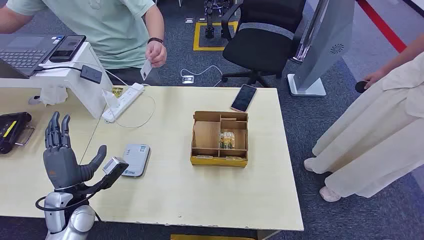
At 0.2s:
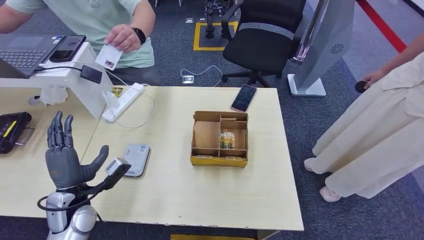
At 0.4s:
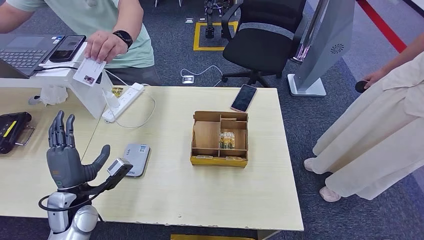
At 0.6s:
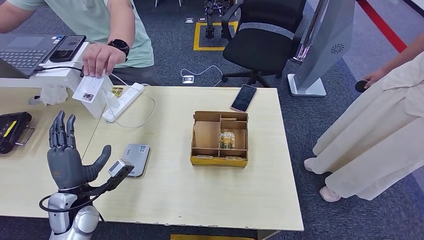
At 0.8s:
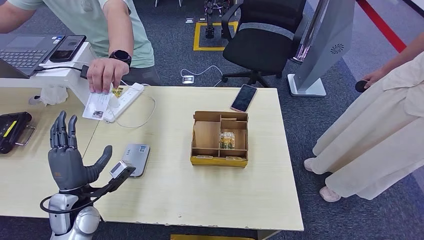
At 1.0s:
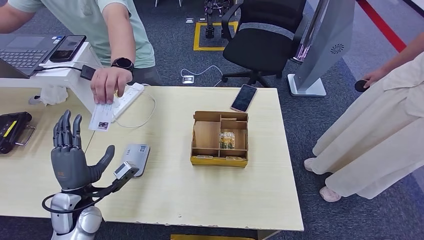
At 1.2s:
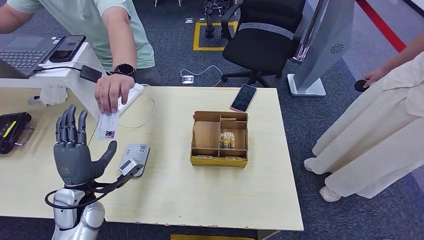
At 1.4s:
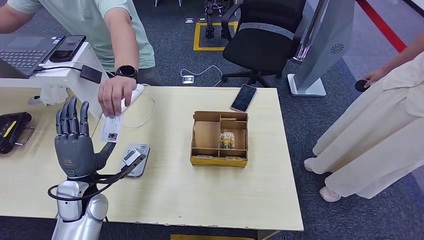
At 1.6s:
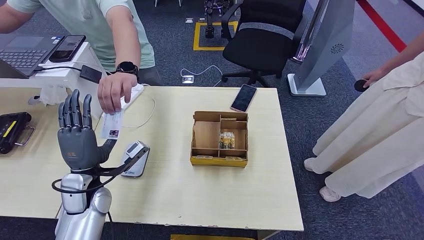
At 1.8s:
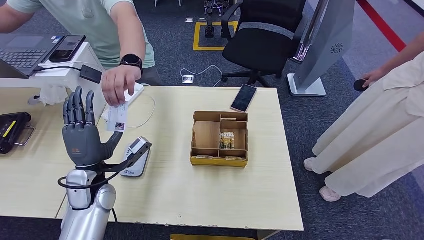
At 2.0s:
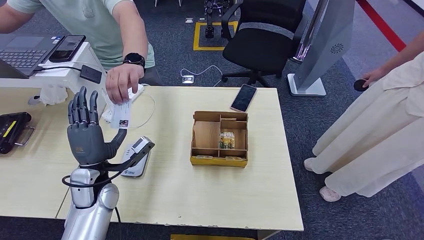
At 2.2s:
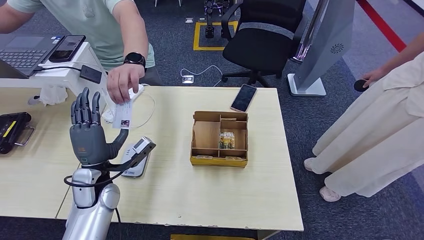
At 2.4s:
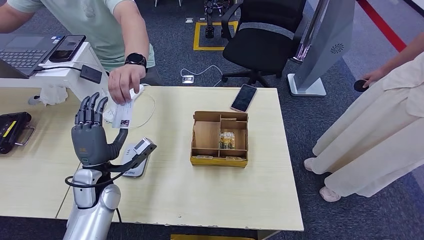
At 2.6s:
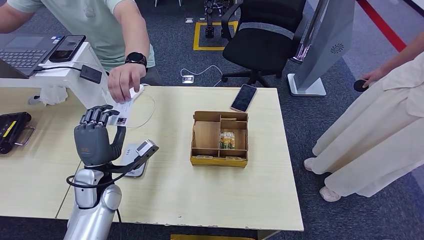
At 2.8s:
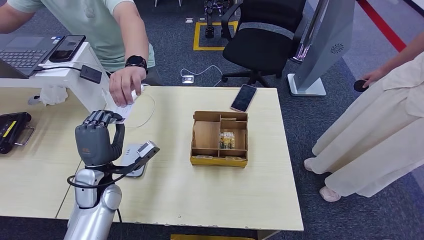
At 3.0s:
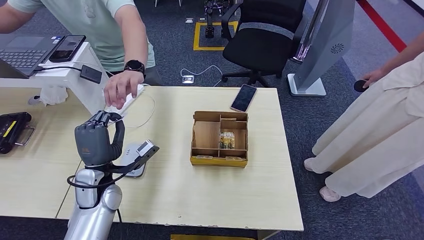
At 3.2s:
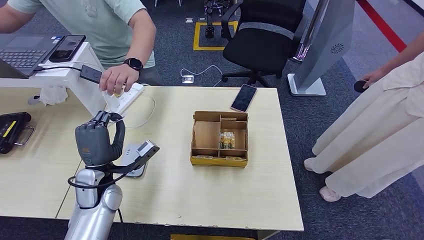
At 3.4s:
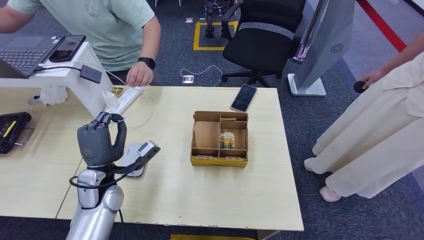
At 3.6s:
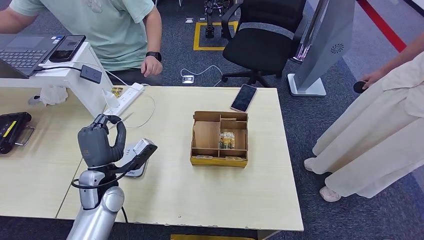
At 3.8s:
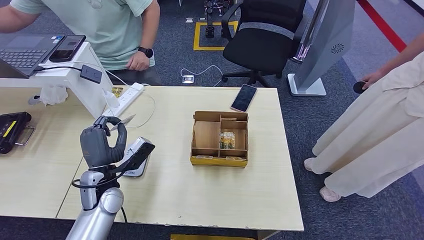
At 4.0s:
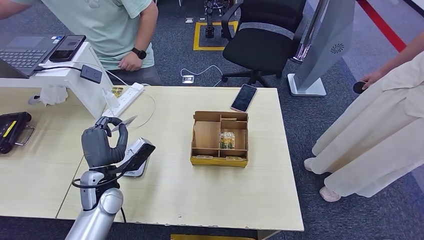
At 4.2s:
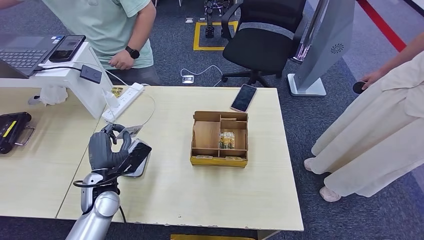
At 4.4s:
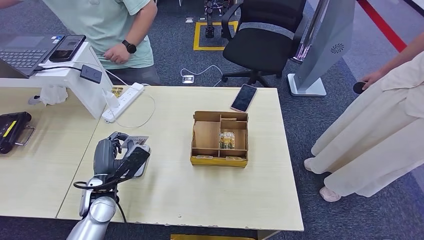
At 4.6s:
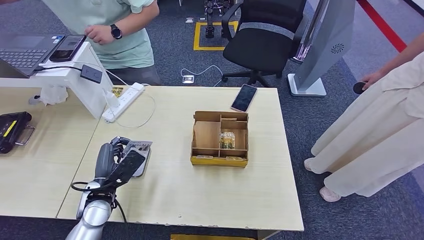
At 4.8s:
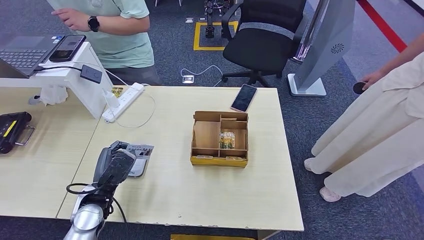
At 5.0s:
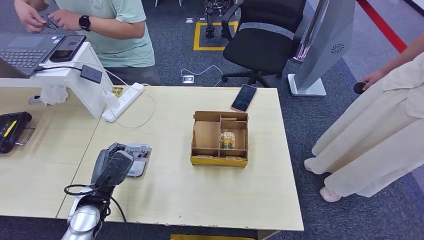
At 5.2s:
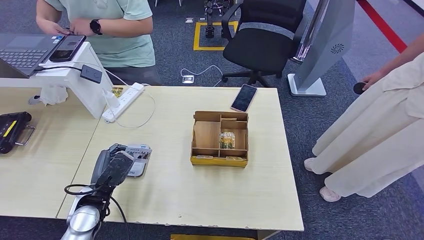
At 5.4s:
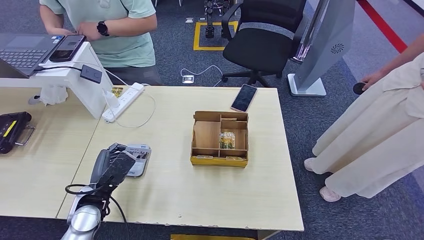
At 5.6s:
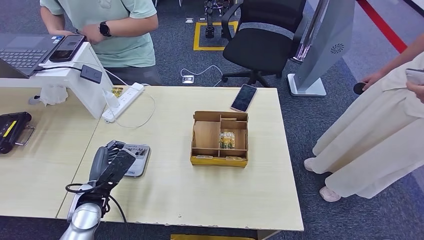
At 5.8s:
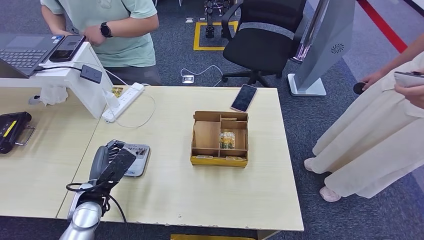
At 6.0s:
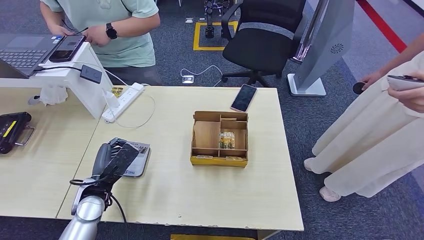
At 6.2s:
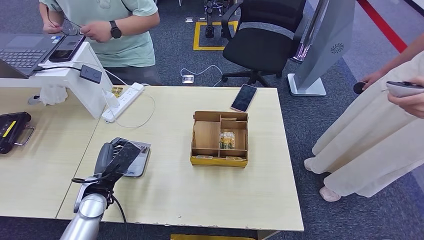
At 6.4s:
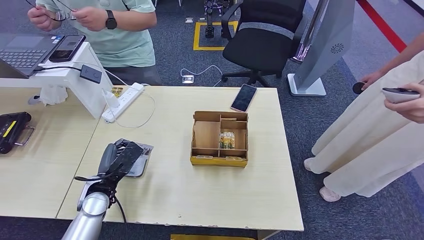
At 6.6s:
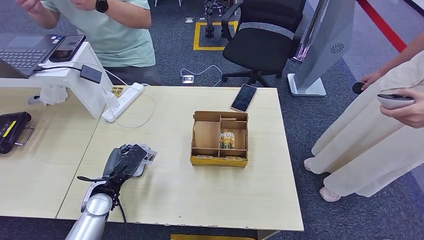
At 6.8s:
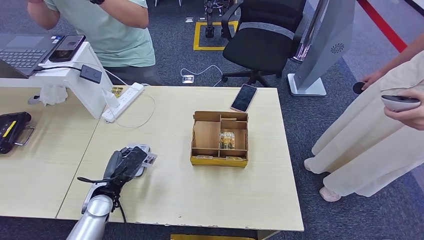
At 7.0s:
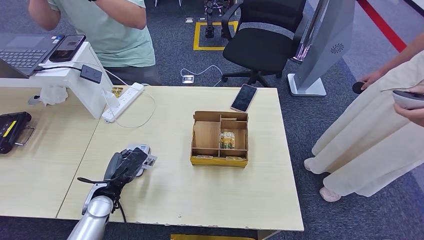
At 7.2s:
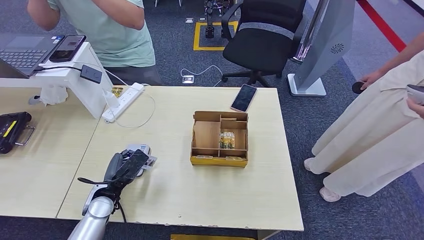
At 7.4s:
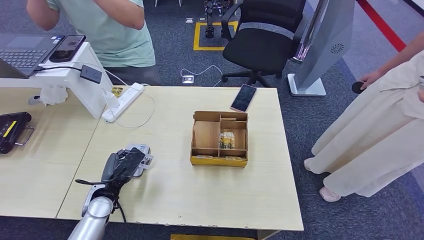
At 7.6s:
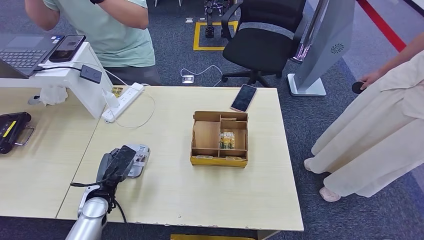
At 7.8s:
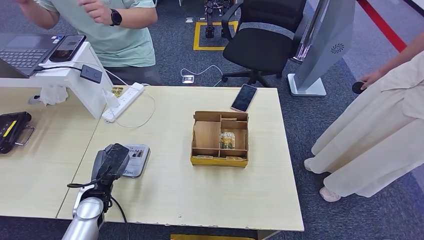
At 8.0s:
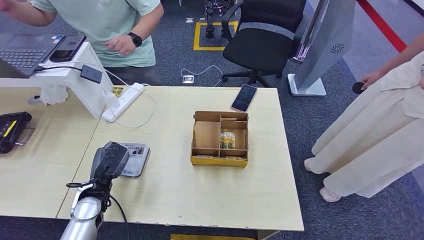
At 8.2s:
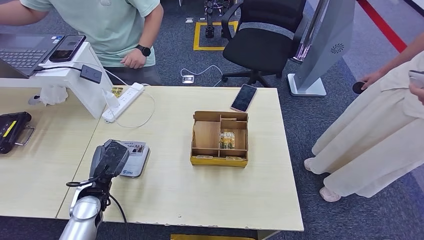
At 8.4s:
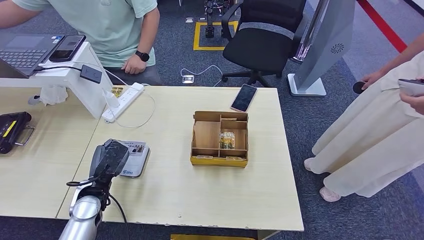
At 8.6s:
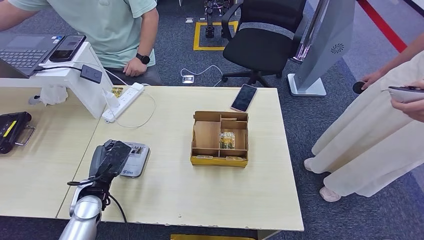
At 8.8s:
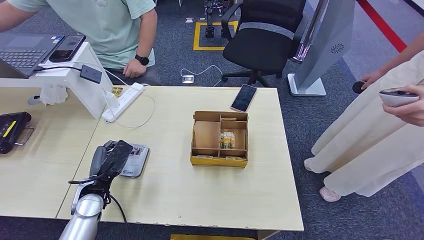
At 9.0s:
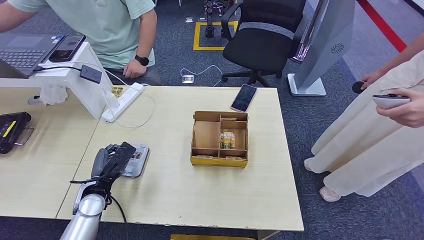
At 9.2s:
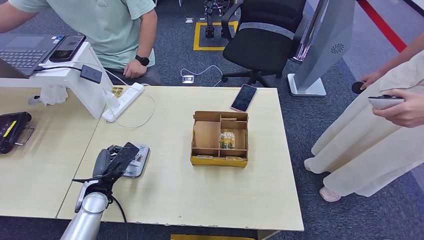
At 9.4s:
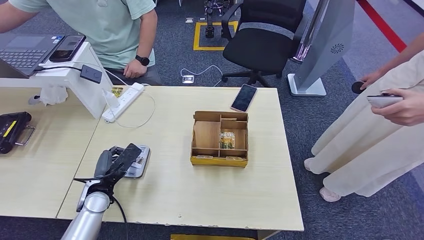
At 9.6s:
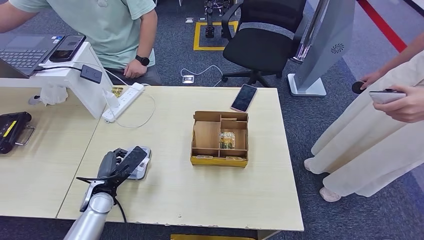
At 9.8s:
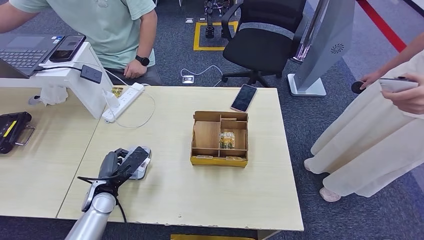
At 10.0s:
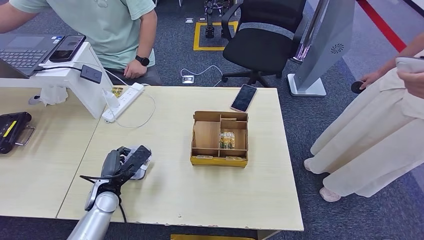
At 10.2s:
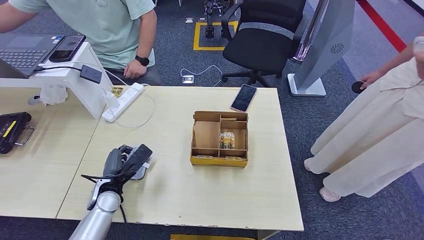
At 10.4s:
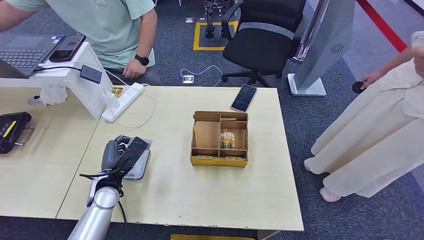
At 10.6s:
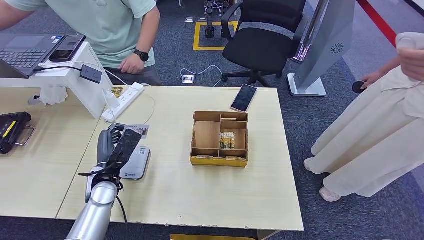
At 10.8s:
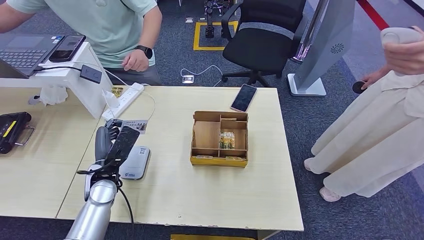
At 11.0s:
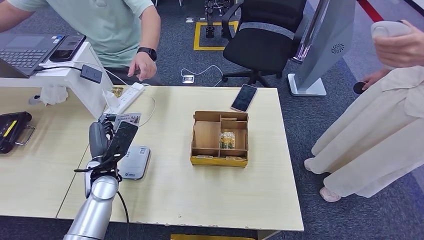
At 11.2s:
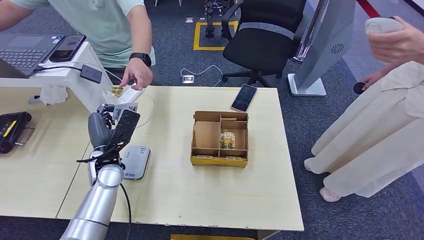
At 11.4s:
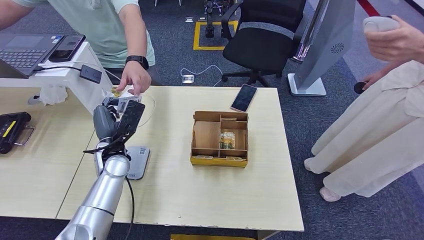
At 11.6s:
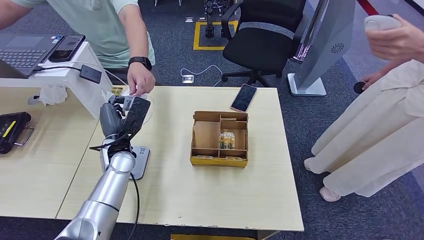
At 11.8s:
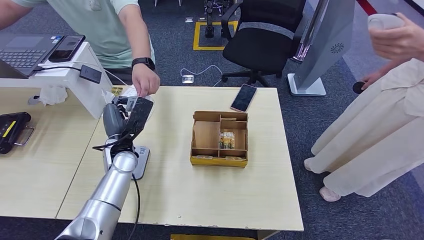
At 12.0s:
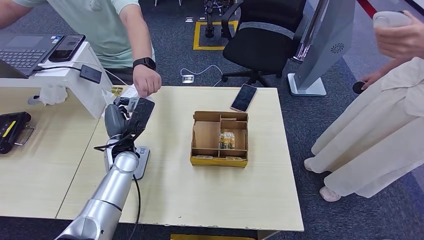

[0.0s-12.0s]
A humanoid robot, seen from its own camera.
Step, 0.0s to 2.2s: Take the ID card from the person's hand.
Step, 2.6s to 8.4s: Place the ID card on the card reader.
1.6s to 3.0s: There are only small adjustments of the hands.
6.0s to 10.4s: There are only small adjustments of the hands.
10.4s to 12.0s: The left hand goes roughly 10 cm forward, upward and to the right.

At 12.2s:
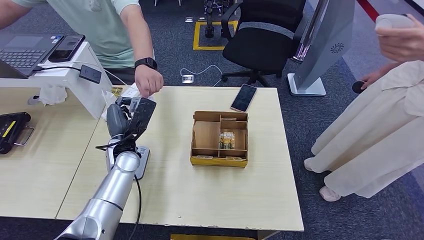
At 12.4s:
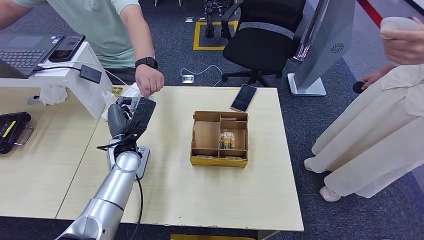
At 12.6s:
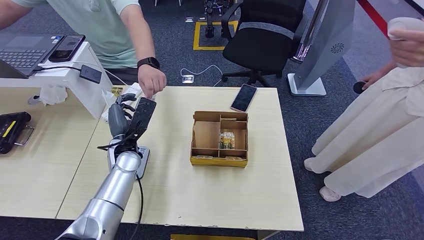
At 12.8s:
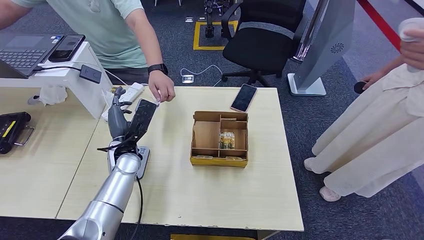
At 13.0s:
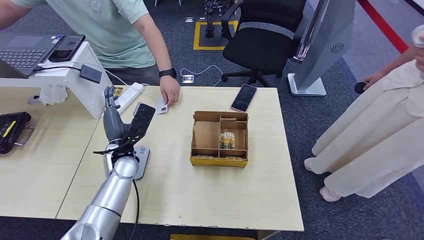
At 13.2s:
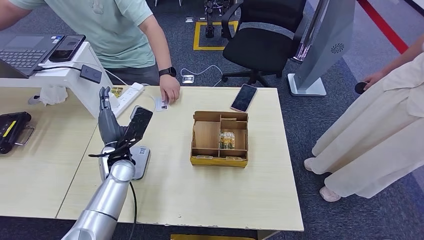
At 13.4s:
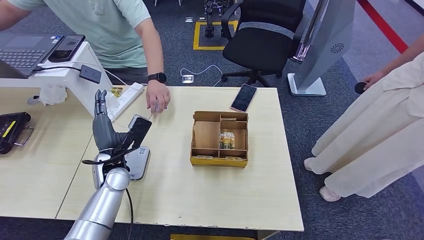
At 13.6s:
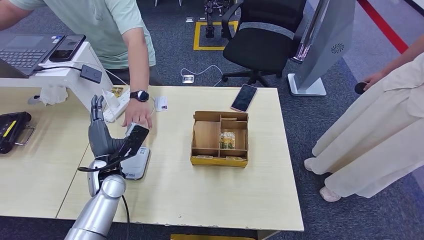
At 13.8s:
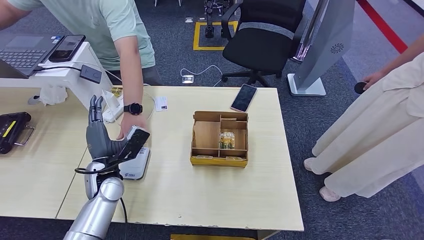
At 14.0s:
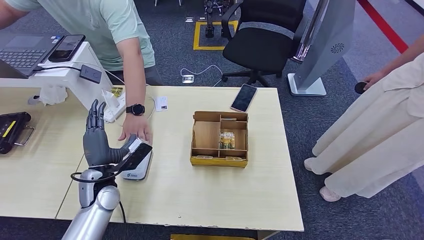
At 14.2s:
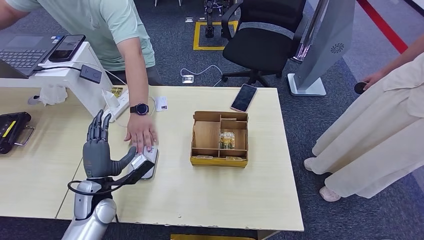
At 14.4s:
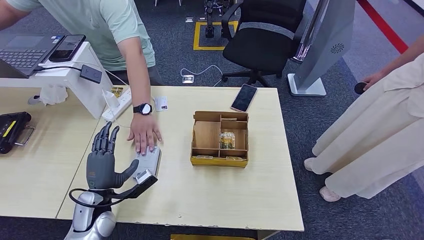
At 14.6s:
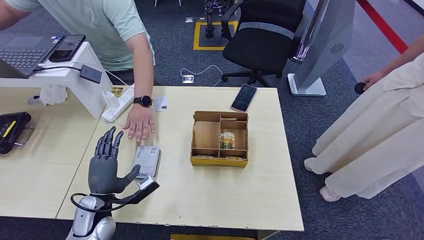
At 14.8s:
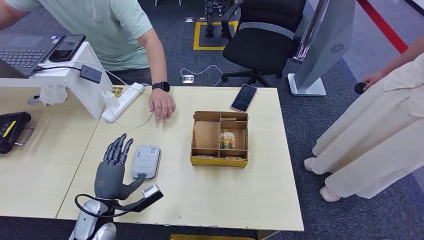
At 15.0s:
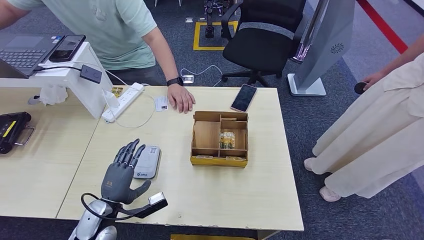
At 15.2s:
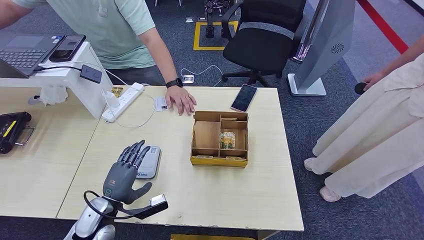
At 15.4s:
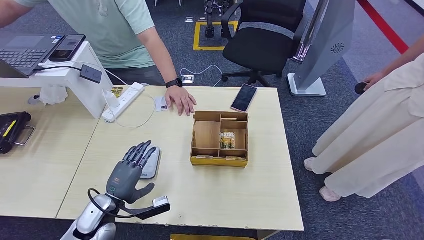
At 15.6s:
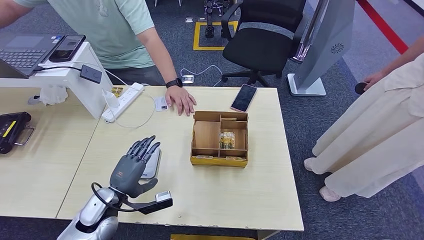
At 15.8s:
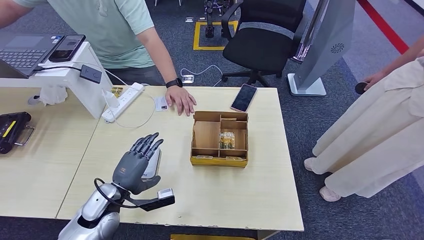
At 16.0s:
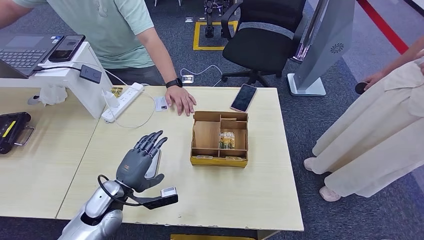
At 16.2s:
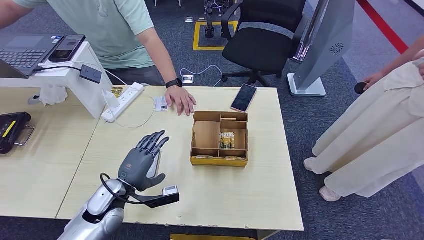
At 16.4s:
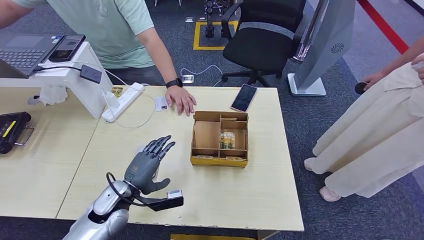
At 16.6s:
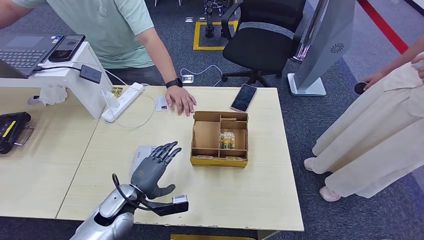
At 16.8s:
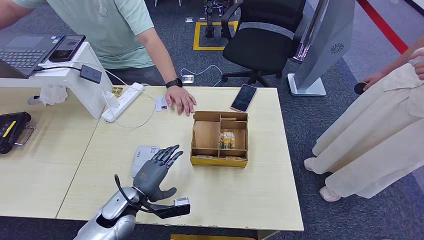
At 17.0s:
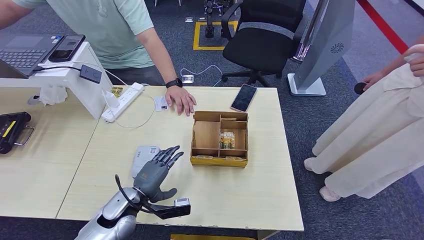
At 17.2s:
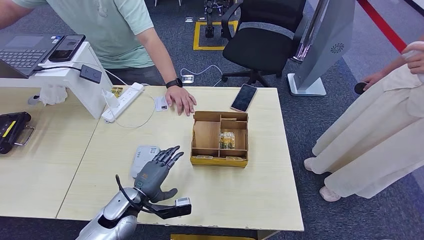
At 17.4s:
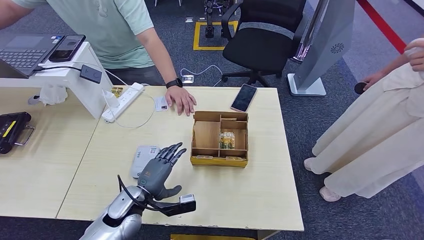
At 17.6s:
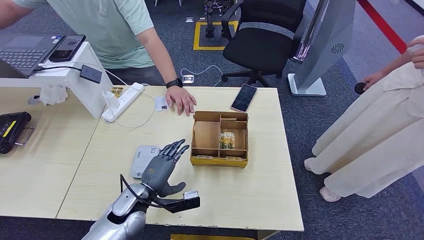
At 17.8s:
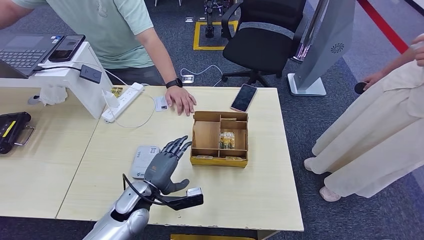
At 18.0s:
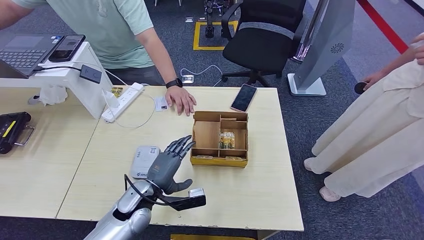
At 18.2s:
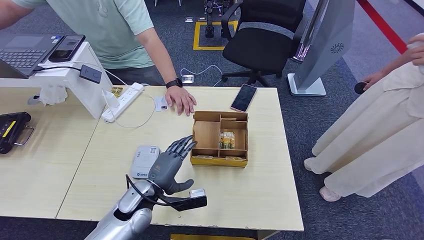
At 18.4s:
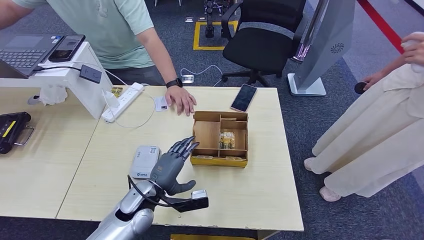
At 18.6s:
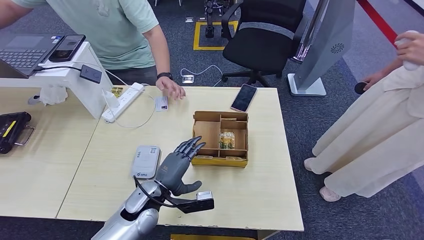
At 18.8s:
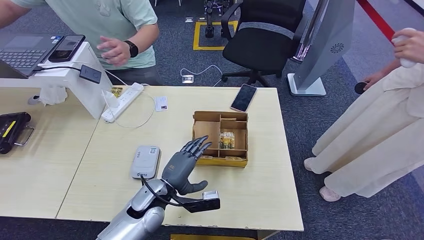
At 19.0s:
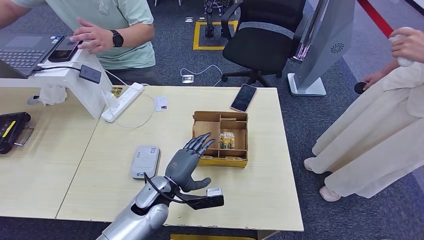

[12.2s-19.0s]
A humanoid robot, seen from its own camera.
Step, 12.8s to 17.4s: Pick up the room key from the key card box.
12.2s to 13.6s: The left hand shifts roughly 5 cm backward.
13.6s to 15.0s: The left hand heads backward and downward, covering approximately 10 cm.
15.0s to 16.2s: The left hand changes place by some 5 cm.
16.2s to 17.6s: The left hand heads to the right, covering roughly 5 cm.
17.6s to 19.0s: The left hand is displaced to the right by about 5 cm.
